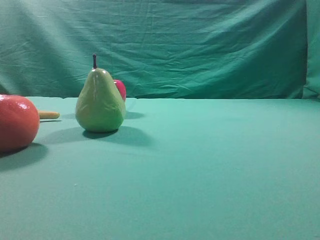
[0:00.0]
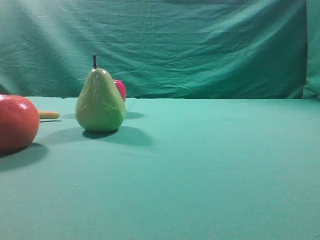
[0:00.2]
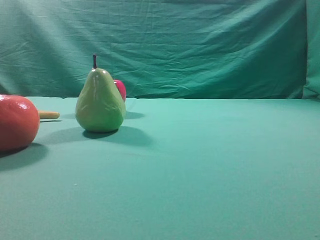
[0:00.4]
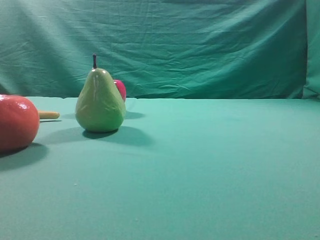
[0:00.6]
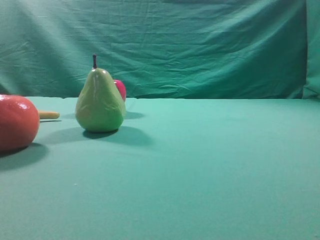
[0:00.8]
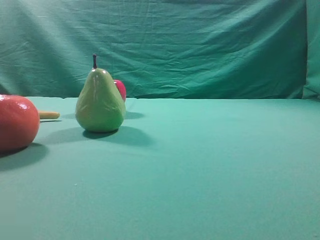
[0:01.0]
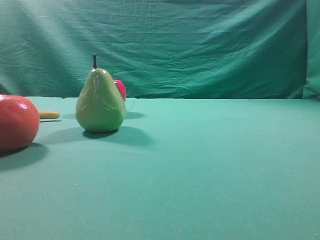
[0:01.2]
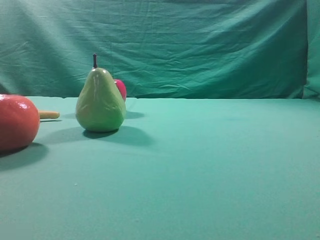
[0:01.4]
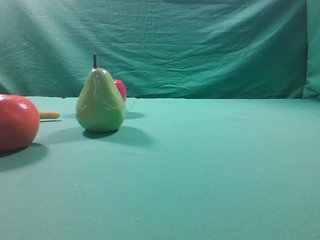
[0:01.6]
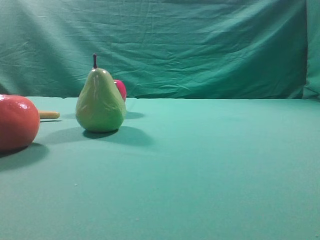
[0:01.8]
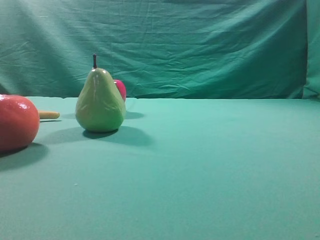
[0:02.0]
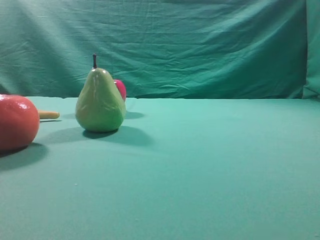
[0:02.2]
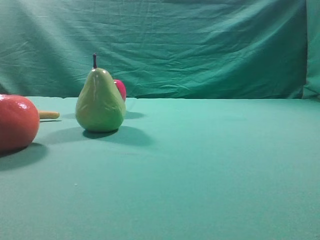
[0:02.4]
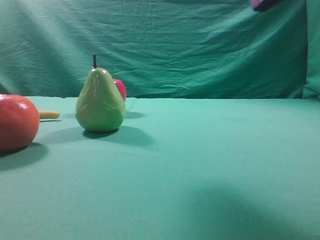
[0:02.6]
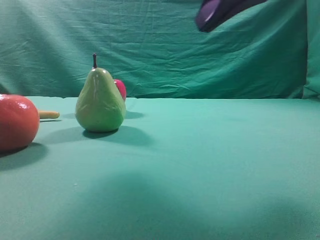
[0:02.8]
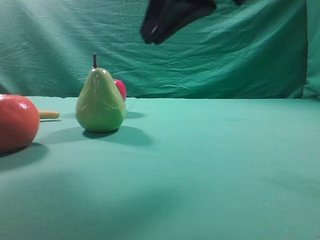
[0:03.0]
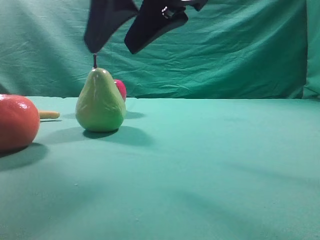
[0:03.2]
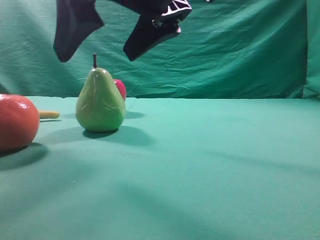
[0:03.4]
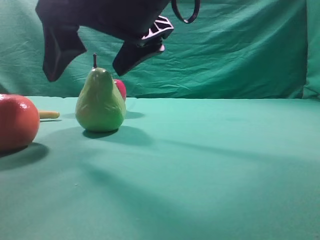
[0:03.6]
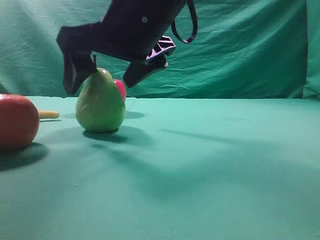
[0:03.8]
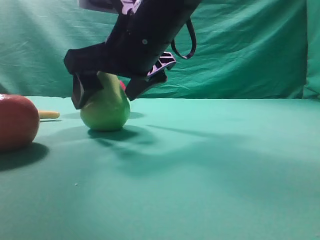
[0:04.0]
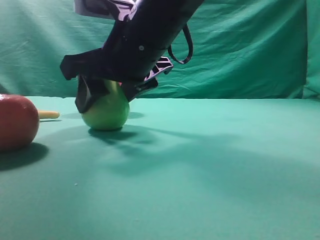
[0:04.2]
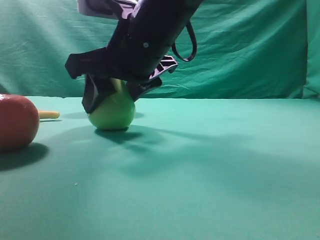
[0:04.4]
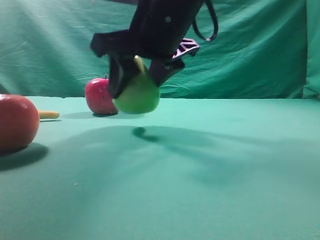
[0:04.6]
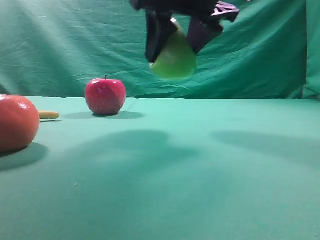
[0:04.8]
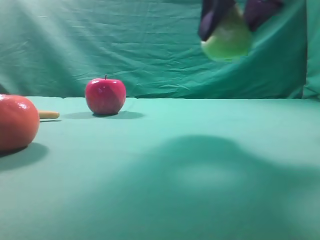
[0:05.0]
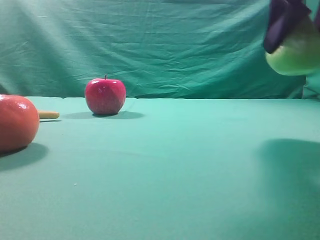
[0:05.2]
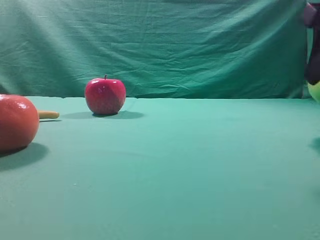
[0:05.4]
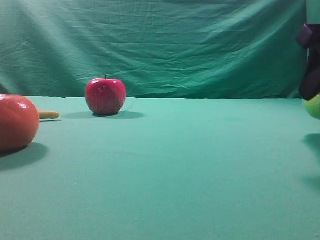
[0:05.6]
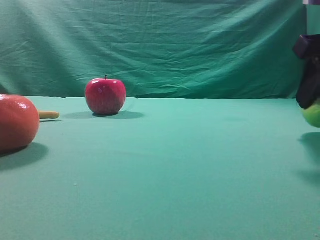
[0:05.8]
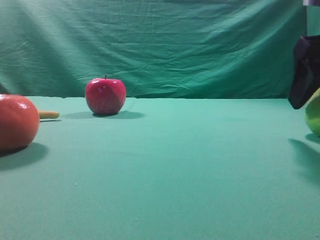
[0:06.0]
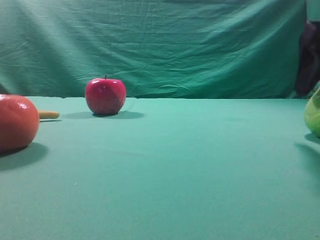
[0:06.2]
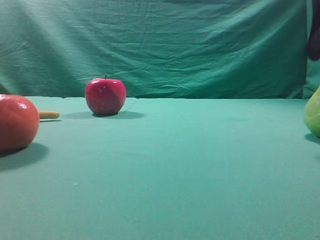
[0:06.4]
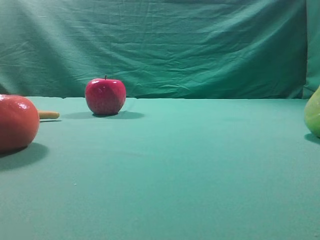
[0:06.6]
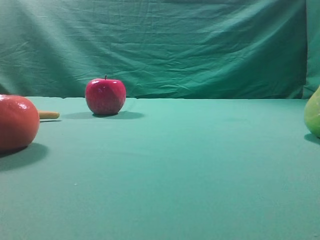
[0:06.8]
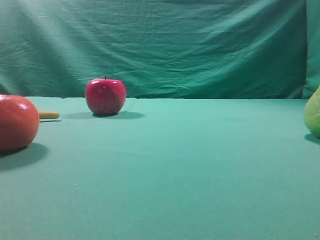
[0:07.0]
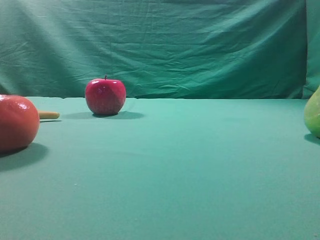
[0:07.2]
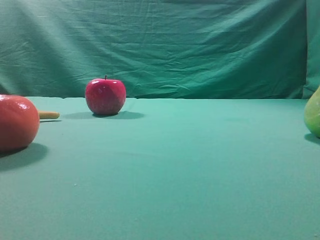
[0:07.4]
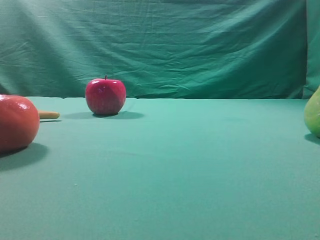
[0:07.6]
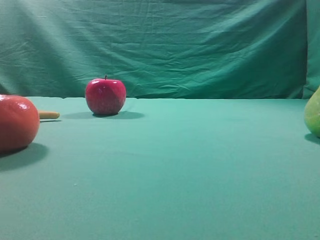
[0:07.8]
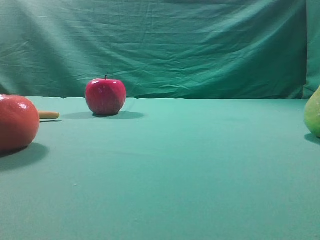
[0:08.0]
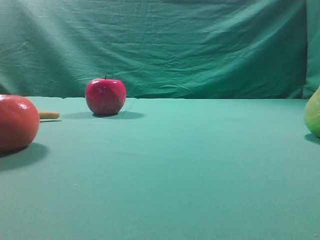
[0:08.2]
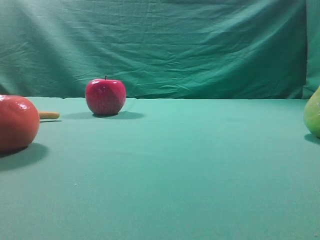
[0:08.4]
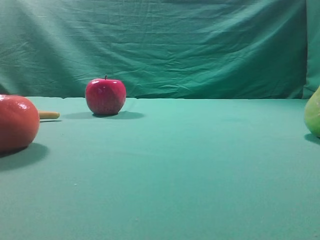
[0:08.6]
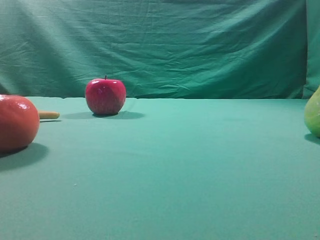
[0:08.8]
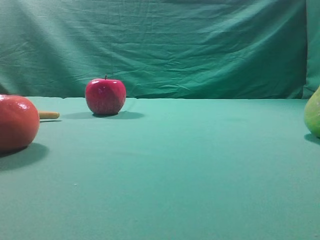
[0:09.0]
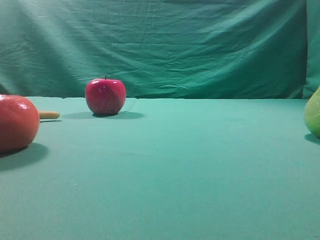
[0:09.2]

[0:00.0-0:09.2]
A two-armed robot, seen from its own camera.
Task of the whole recording: Grasp the pear and place it on one side of the table.
Step, 0:00.0 to 0:04.6: Grasp the high-fiber fruit.
Step, 0:04.8 to 0:06.4: Place it on the right side of the table.
